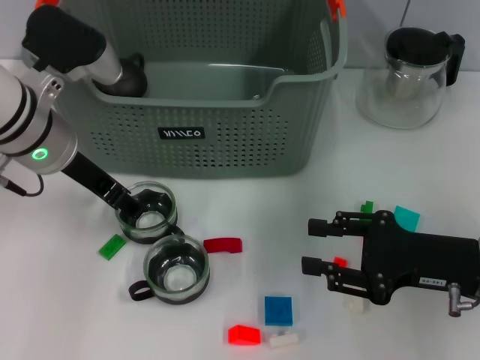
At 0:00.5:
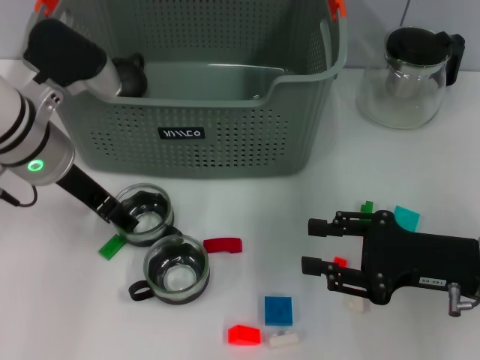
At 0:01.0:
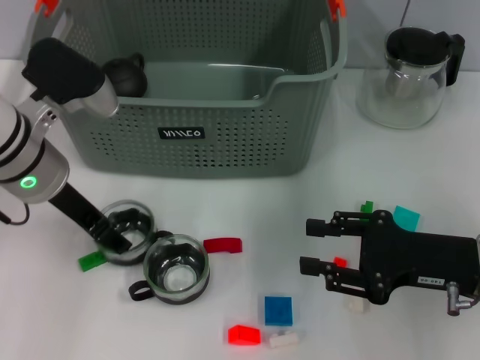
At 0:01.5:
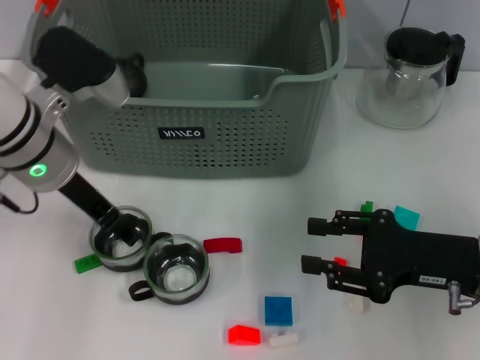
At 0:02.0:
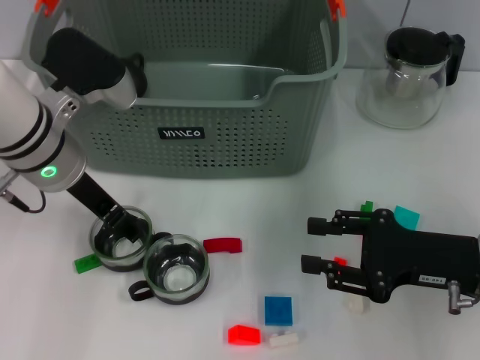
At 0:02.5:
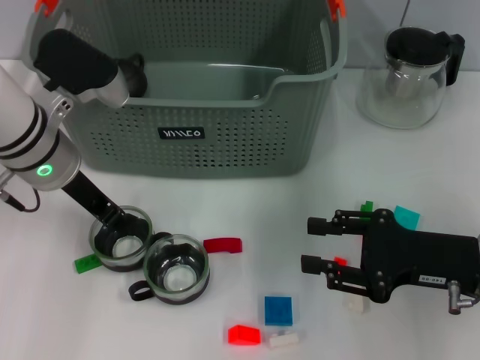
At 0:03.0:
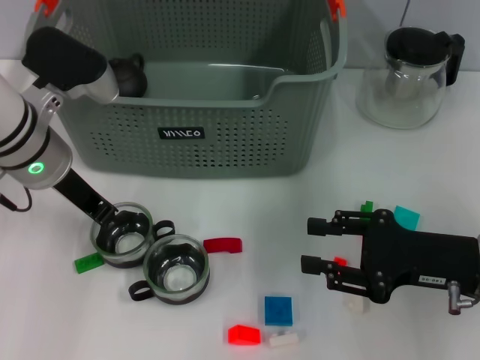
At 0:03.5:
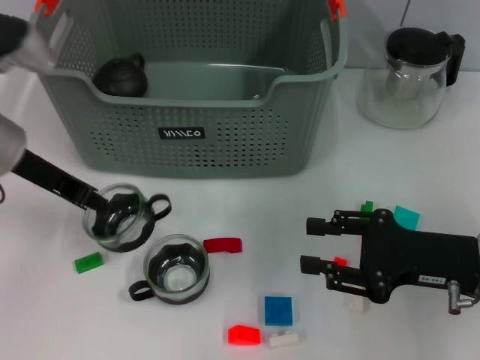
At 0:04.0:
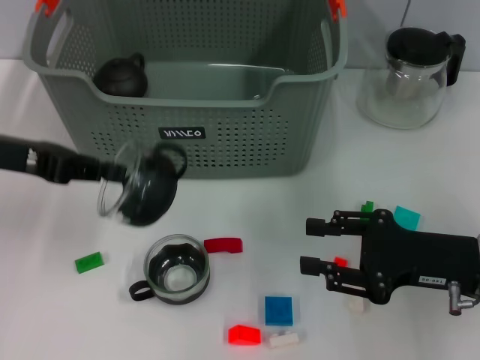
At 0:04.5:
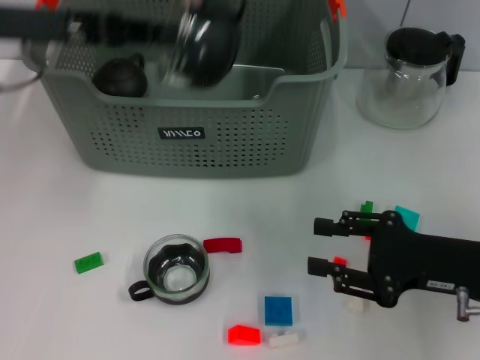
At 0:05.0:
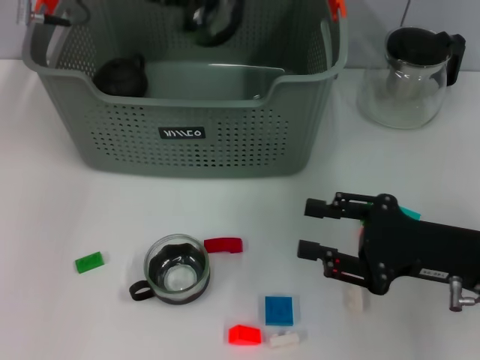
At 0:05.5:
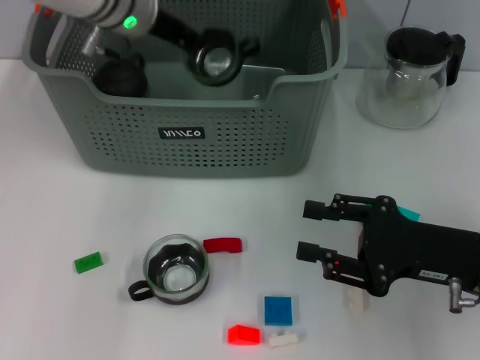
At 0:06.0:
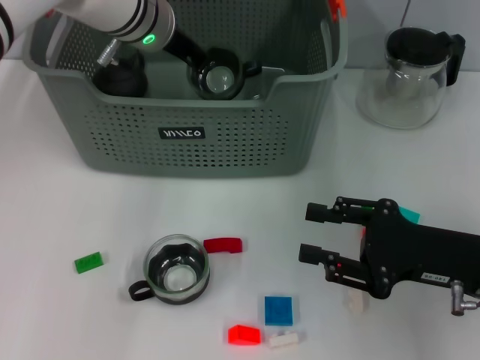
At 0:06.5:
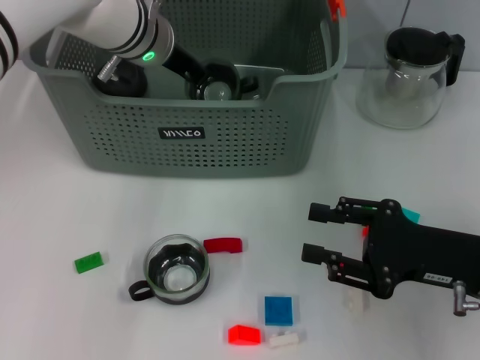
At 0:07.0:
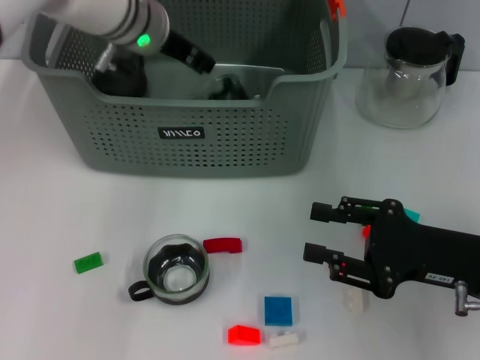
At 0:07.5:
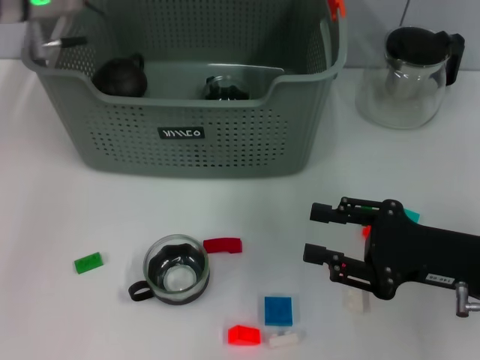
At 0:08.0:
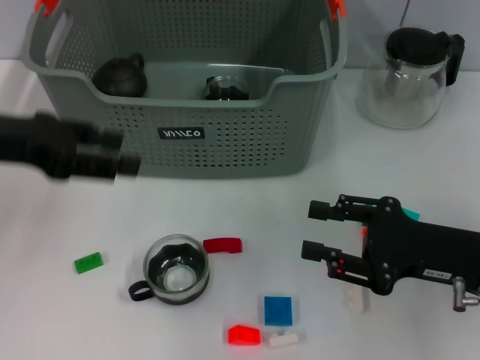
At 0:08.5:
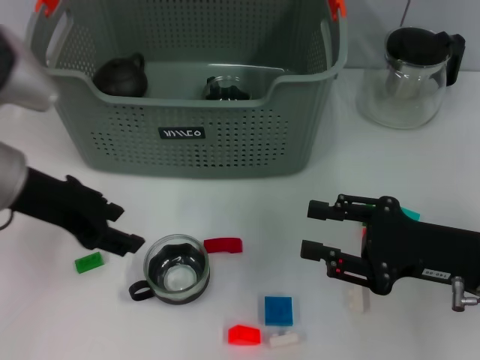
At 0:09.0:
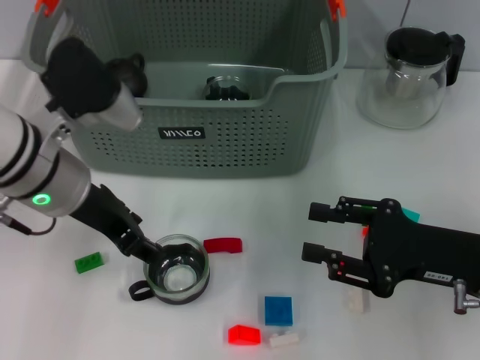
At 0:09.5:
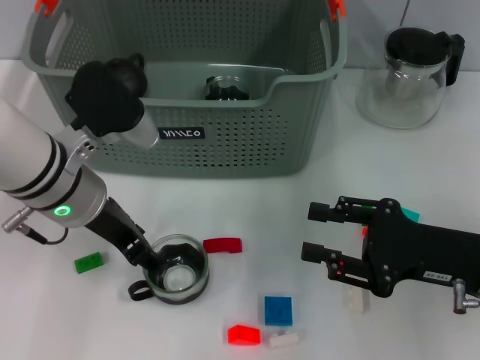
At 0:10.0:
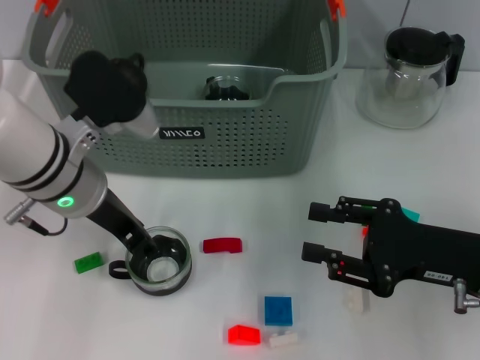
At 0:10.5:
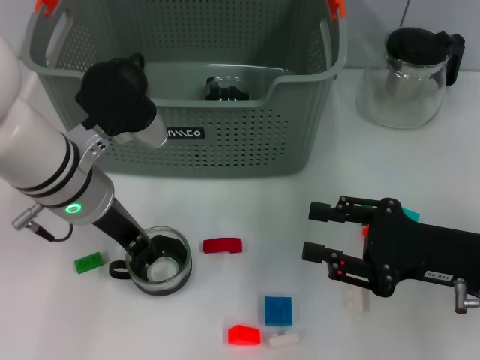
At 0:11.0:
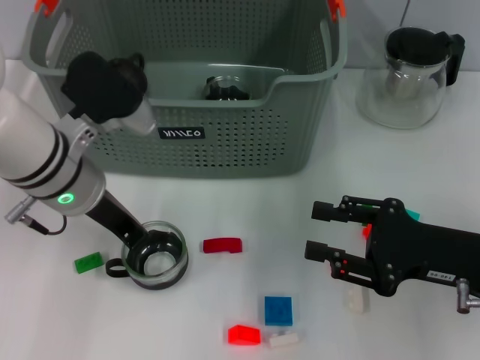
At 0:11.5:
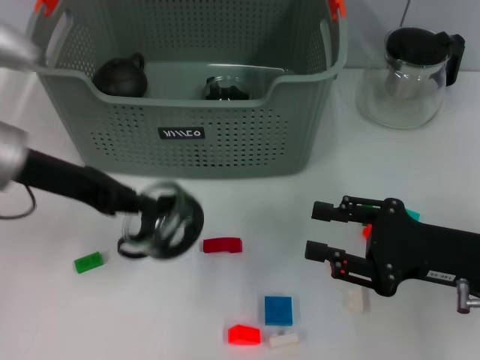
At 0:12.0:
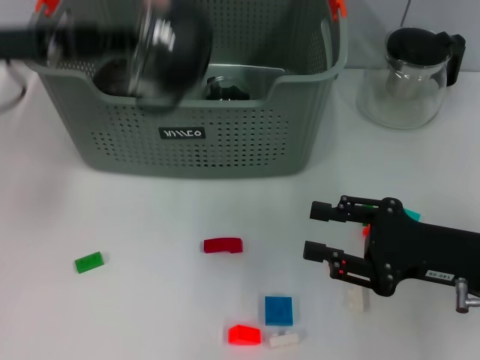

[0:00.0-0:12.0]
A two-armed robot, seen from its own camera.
Task of the whole recording: pick up the teacup on the table and place it into the storage bin, pick up the block on the table and place it into the storage bin.
Step, 0:00.0 to 0:03.0: Grasp the cup with left gripper.
Step, 0:03.5 to 0:07.5: Place the cup in the storage box with left gripper.
Step, 0:08.0 to 0:11.0: Grasp the cup with left gripper.
0:00.0 to 0:02.0: There are only small adjustments of the grippers.
0:02.0 to 0:04.0: The left gripper is displaced to the left by approximately 10 cm, and closes.
0:04.0 to 0:06.0: The left gripper heads to the right and forward, covering approximately 25 cm.
0:06.0 to 0:08.0: The left gripper goes some 25 cm to the left and backward, and opens its fingers.
0:08.0 to 0:10.0: The left gripper is displaced to the right and downward by roughly 15 cm.
0:10.0 to 0:12.0: The left gripper is displaced to the left and upward by approximately 15 cm, and closes.

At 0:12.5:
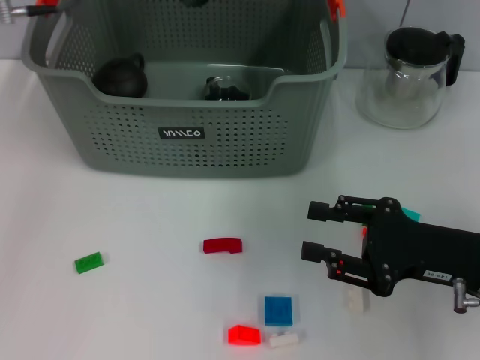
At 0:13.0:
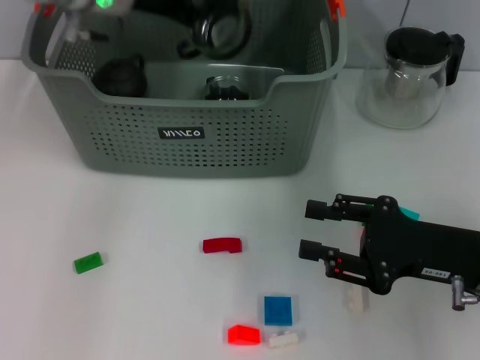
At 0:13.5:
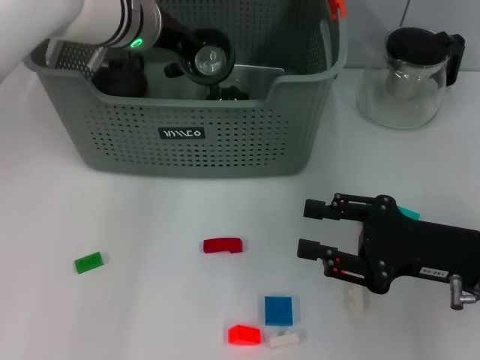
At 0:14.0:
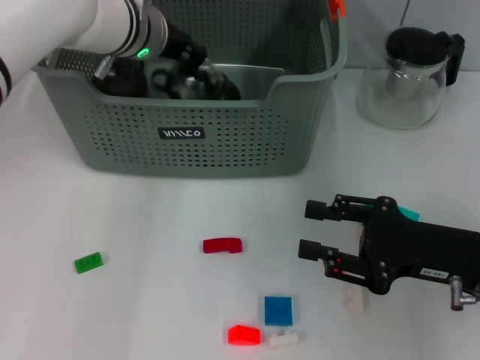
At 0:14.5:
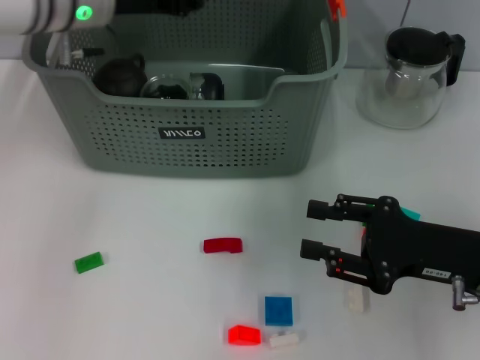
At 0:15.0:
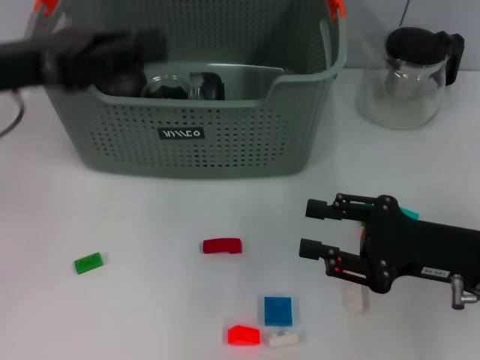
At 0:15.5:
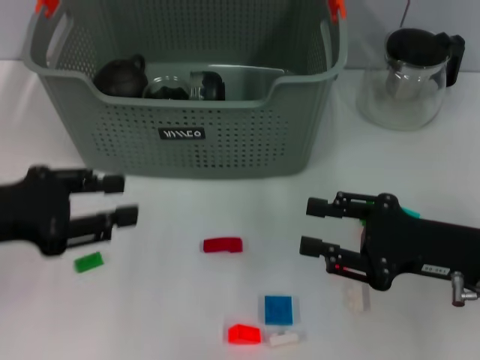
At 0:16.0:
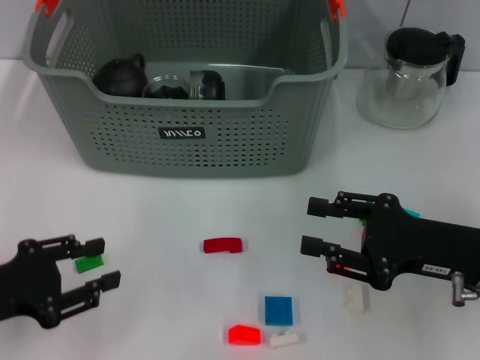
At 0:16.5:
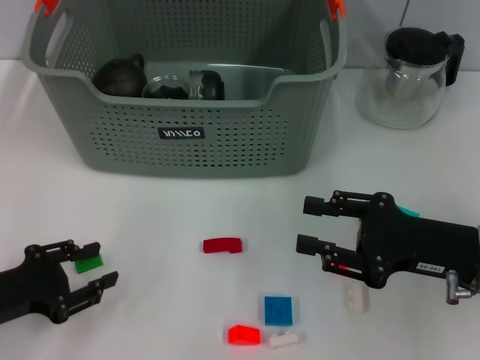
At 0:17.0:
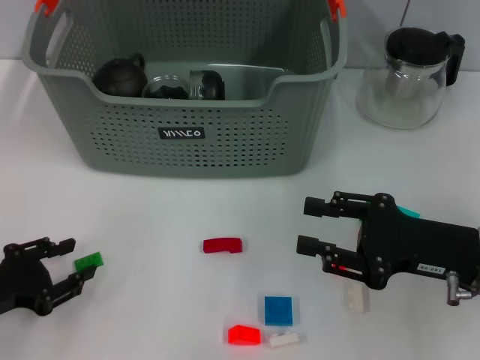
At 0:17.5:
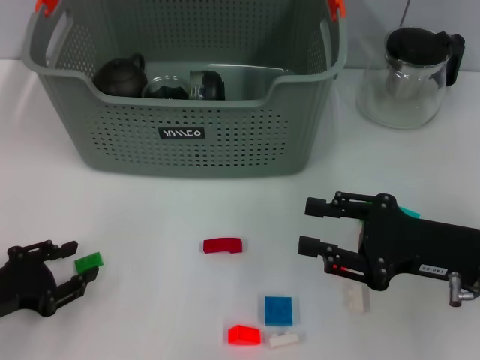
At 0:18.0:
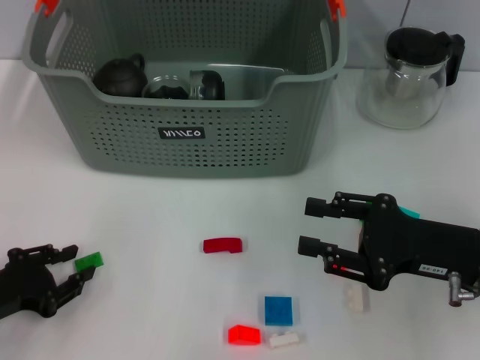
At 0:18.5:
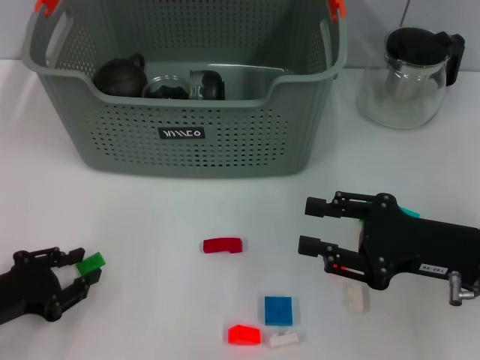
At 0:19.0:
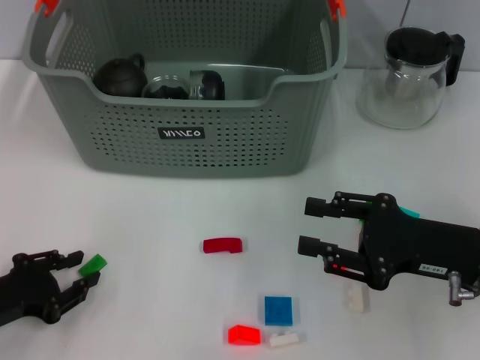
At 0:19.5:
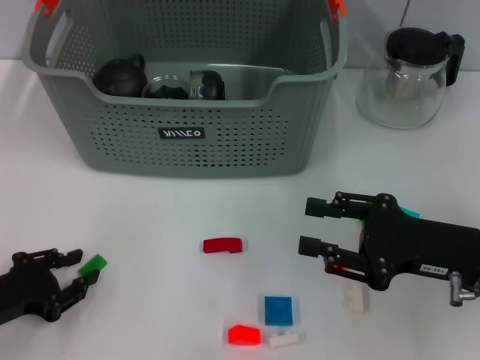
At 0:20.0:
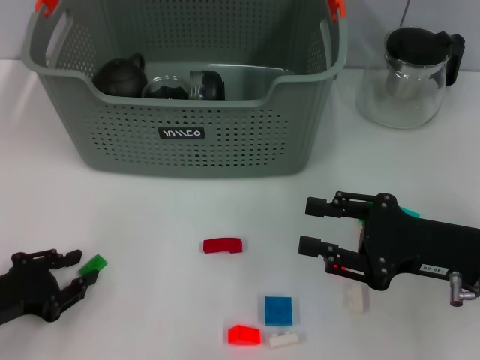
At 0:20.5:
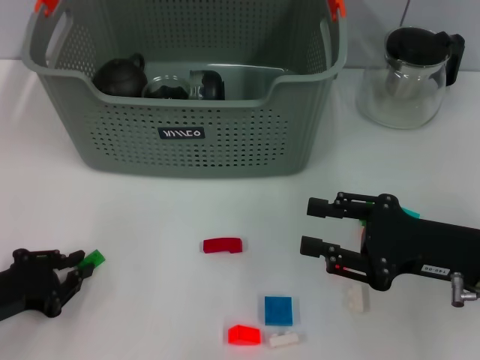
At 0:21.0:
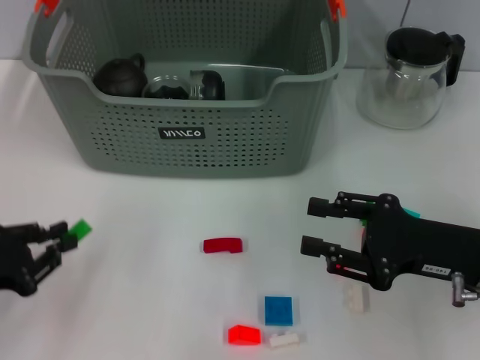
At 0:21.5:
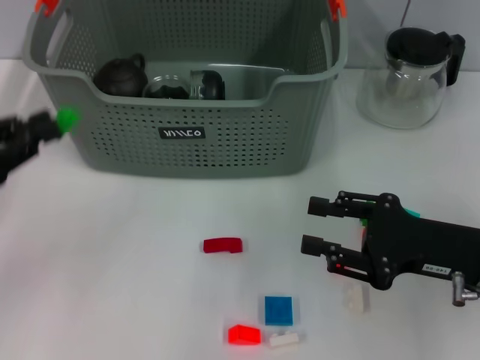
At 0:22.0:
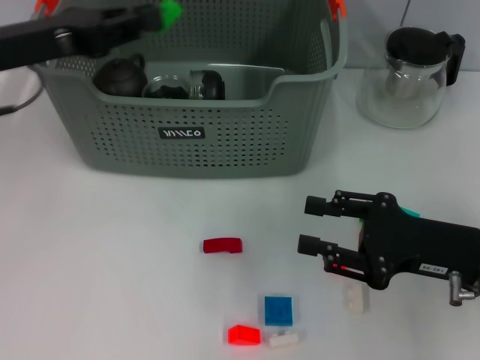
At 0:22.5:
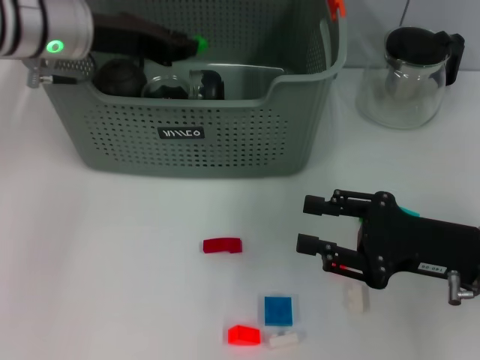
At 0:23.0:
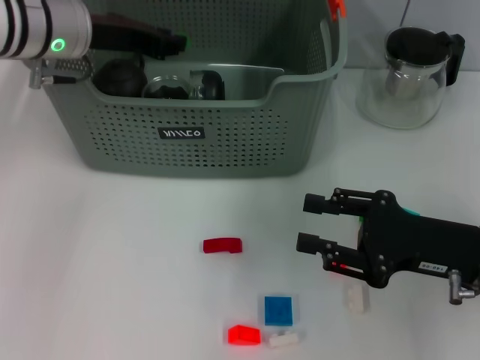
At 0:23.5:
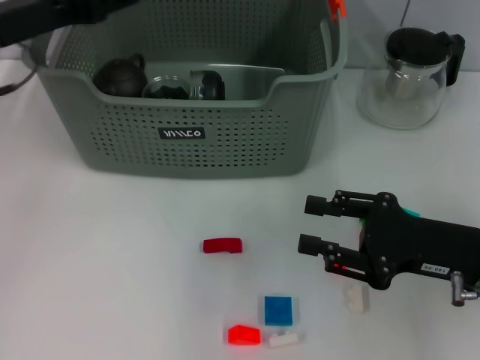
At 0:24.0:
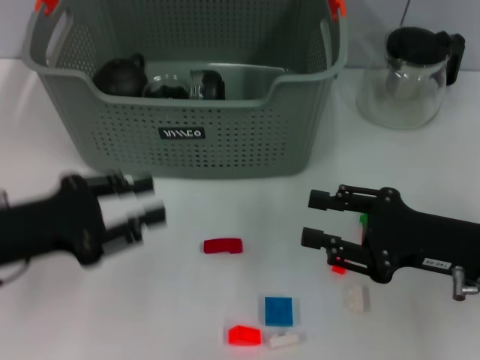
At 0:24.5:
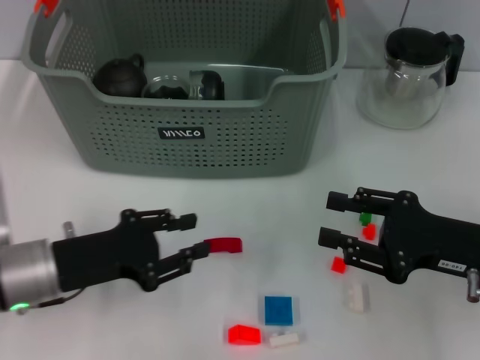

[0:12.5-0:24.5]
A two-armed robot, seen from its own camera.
Task of the whole recording: pick up the teacup on the table and place it into the storage bin, pick up the block on the table and place it into the storage bin.
Step, 0:12.5 to 0:15.0: Place the cup in the storage box with left gripper.
Step, 0:15.5 to 0:20.0: Grasp the green block with left gripper.
Step, 0:20.5 to 0:23.5: Place the green block in the storage box with left gripper.
0:14.5 to 0:16.5: The left gripper shifts approximately 30 cm backward, downward and to the left.
0:16.5 to 0:18.5: There are only small adjustments of the grippers.
0:18.5 to 0:20.5: Neither gripper changes place.
0:20.5 to 0:22.5: The left gripper moves forward, upward and to the right, roughly 30 cm.
0:22.5 to 0:24.5: The left gripper shifts some 25 cm backward and downward.

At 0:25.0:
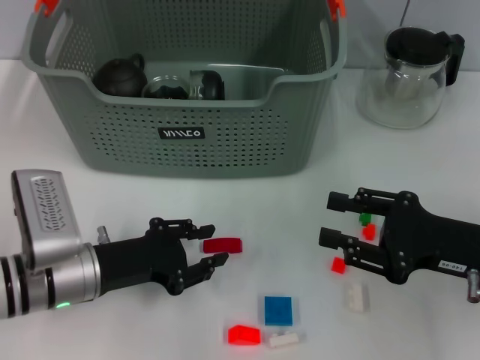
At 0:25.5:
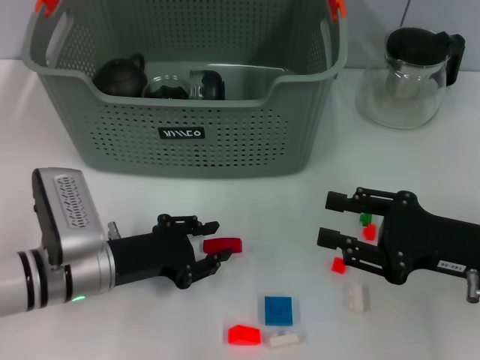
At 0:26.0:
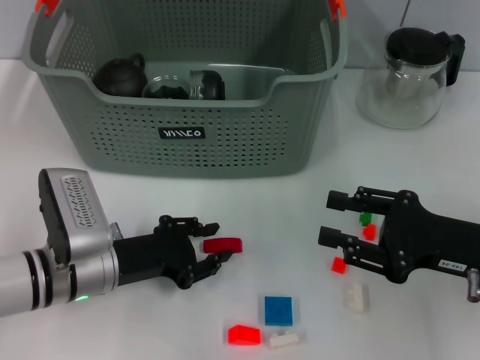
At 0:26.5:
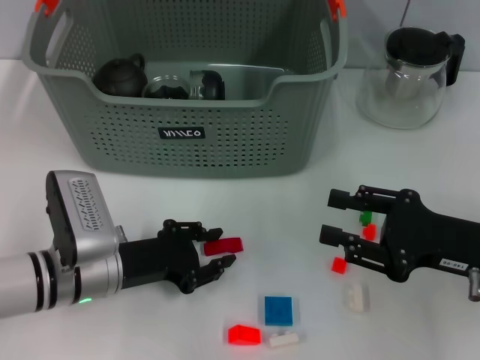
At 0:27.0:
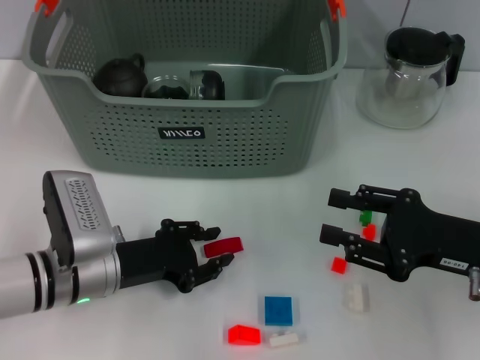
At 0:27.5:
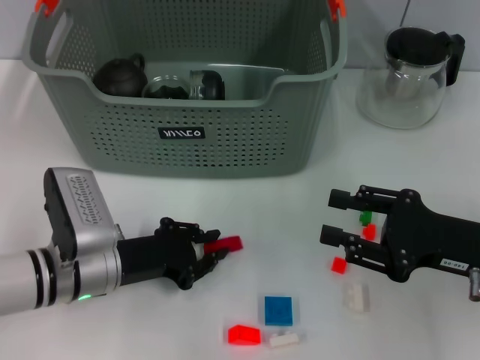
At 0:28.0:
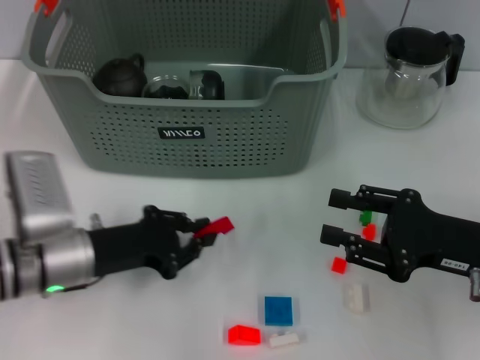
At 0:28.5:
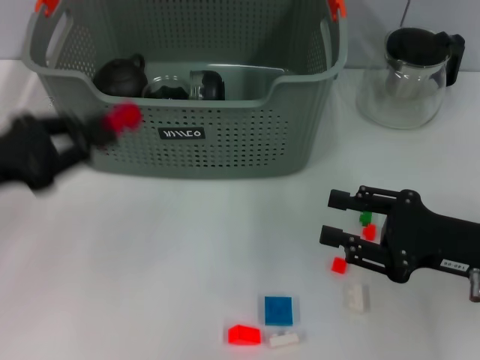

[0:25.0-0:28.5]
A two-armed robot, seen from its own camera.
Task of the whole recording: pick up the teacup on the table and place it into the storage bin, pick up the block on the table and place it into the storage bin.
Step, 0:25.0 to 0:27.5: Grasp the red block with left gripper.
0:25.0 to 0:27.0: The grippers stay close to where they were, moving slightly.
0:27.0 to 0:28.5: The left gripper heads upward and to the left, covering some 20 cm.
